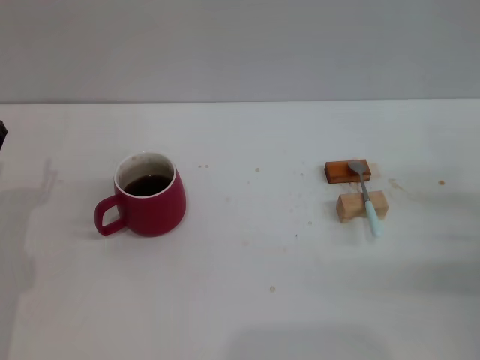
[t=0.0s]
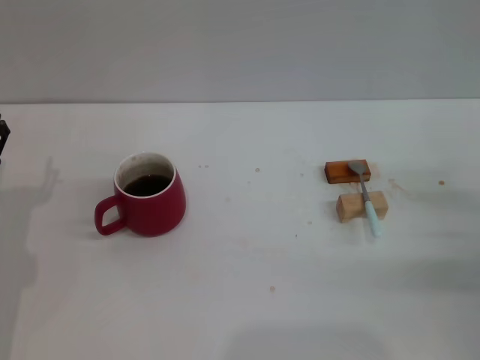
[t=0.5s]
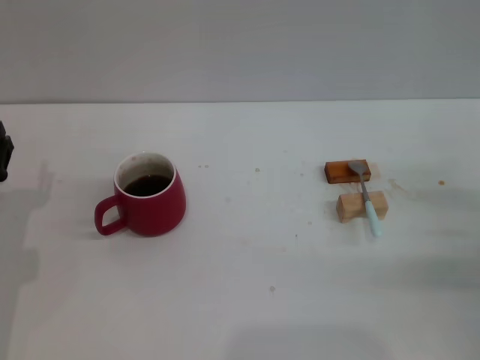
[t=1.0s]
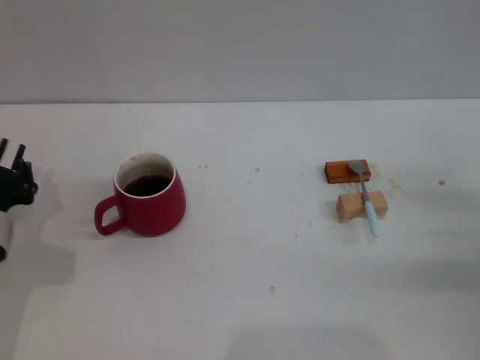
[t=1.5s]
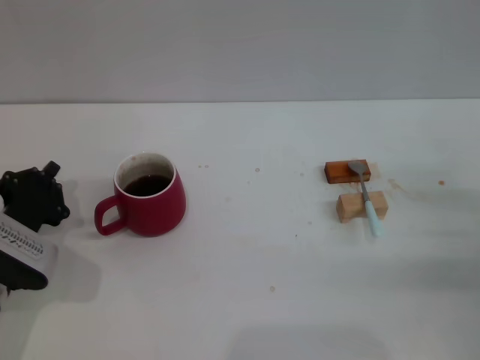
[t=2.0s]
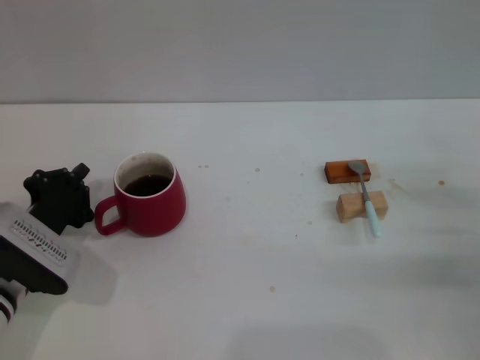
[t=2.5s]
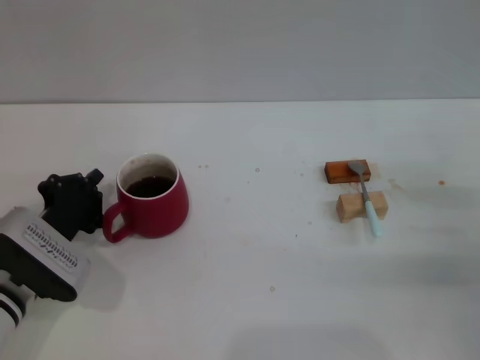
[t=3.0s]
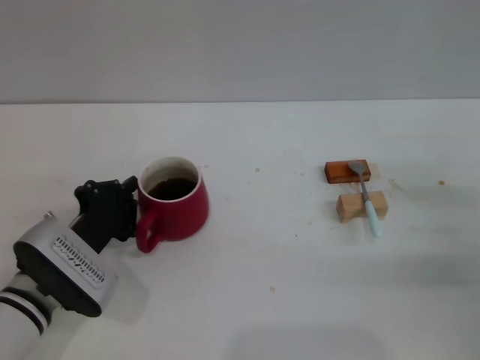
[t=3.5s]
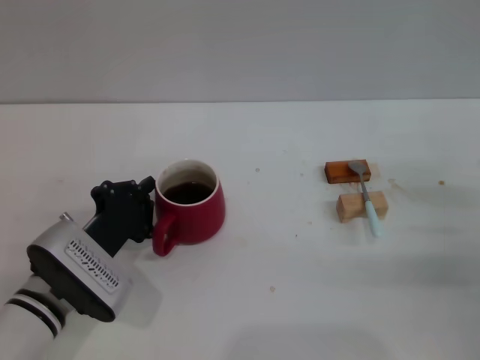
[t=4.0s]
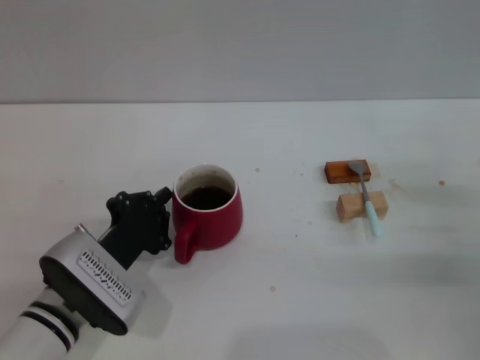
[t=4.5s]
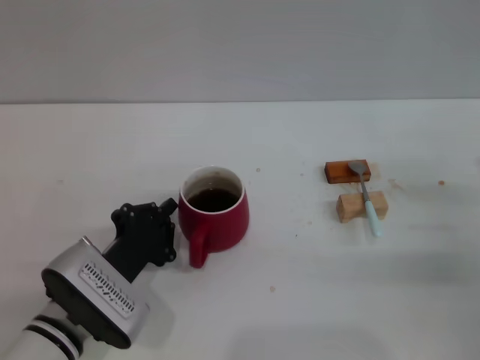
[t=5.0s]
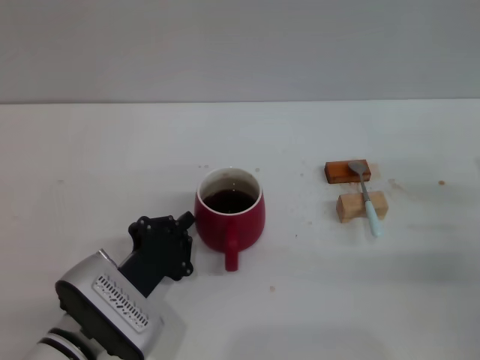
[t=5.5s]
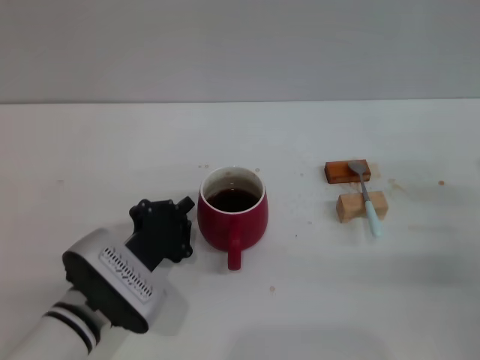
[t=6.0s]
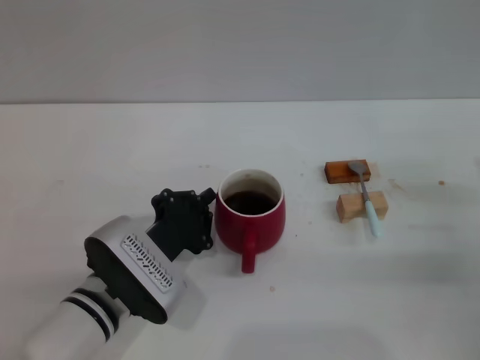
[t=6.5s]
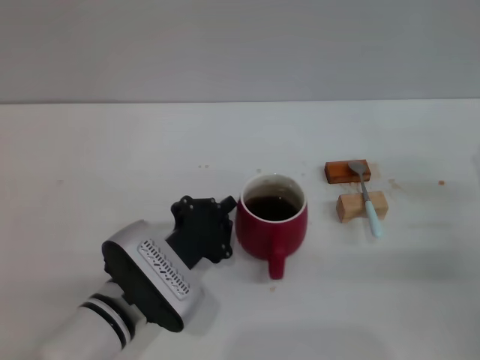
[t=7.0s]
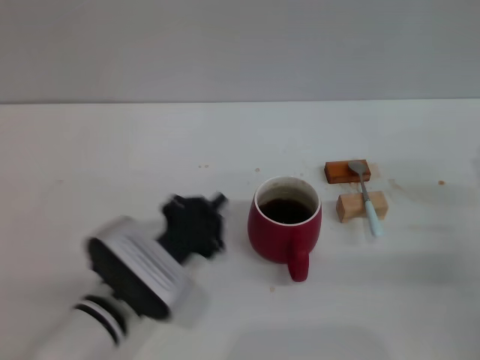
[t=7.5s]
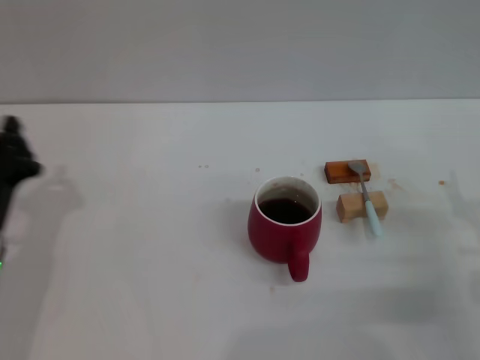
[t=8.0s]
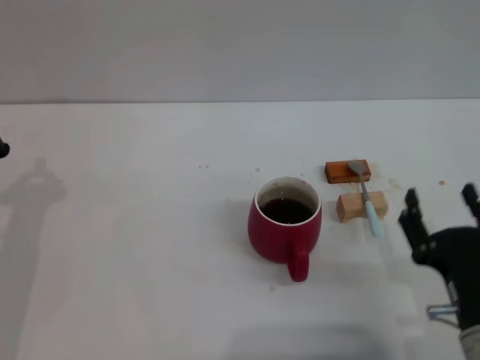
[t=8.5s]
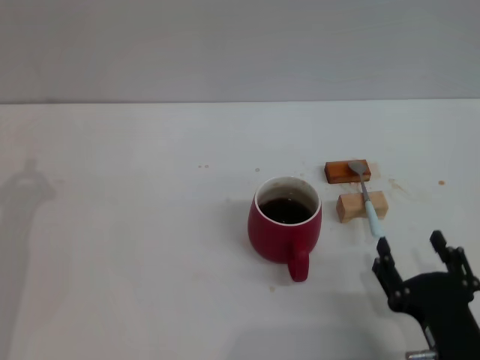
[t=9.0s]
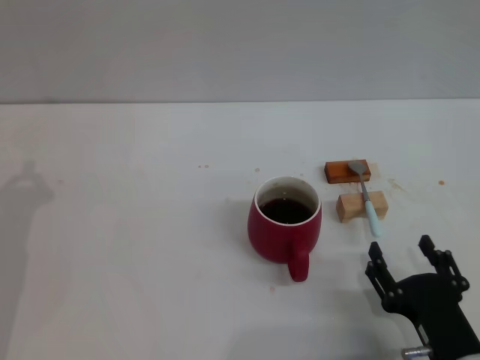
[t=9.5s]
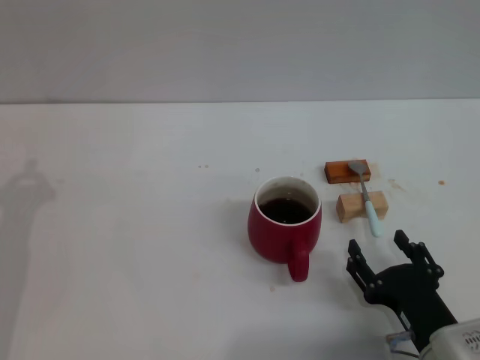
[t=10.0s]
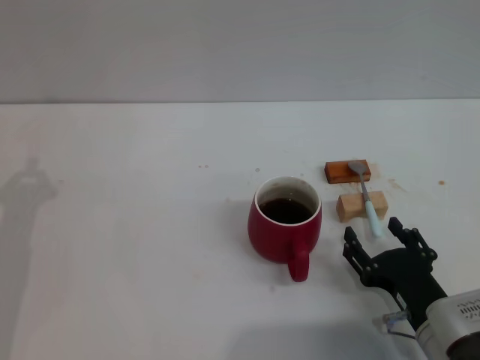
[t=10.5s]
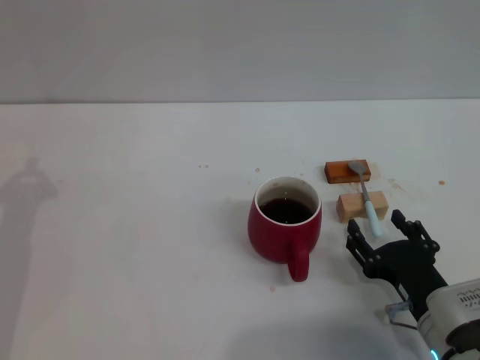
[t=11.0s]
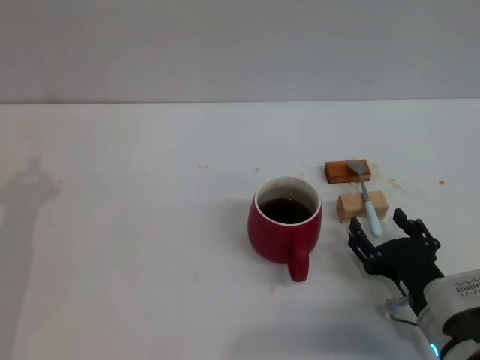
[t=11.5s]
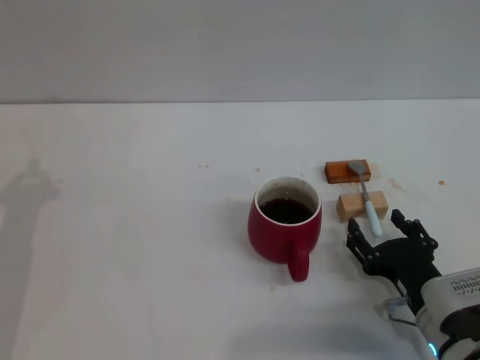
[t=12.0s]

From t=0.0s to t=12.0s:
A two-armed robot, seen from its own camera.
Task of the whole recording: Move the red cup to the center, lift the blue spoon, stir it three times in the cup, and put the spoon into the cup.
Step, from t=0.0s to t=7.0s: Move the cup in the center of the table with left gripper.
From t=0.0s to t=2.0s: The left gripper closes its fingers.
From t=2.0s to t=4.0s: The left gripper moves to the right, roughly 5 cm.
From t=4.0s to t=6.0s: There are only small adjustments of the grippers.
From t=6.0s to t=8.0s: The left gripper is displaced to the left by approximately 10 cm; the right gripper moves some 5 cm.
From t=8.0s to t=10.0s: The right gripper goes approximately 10 cm to the left and backward.
From t=10.0s to t=12.0s: There are only small adjustments of the grippers.

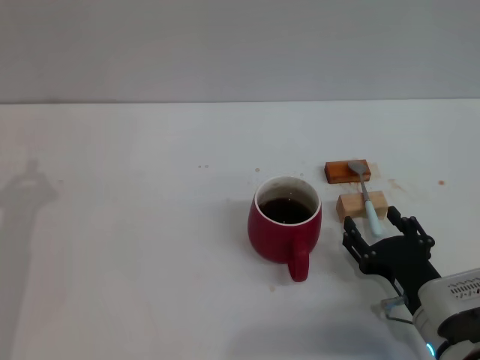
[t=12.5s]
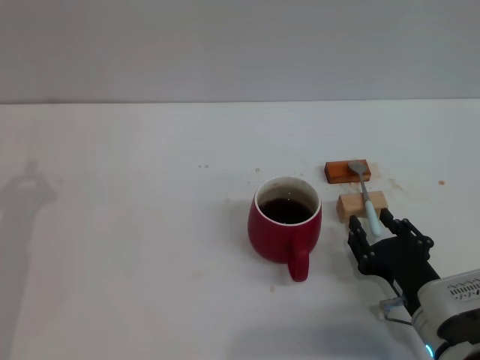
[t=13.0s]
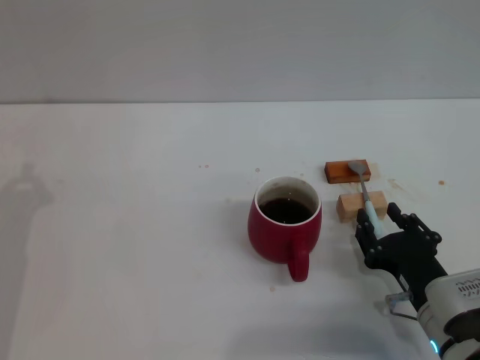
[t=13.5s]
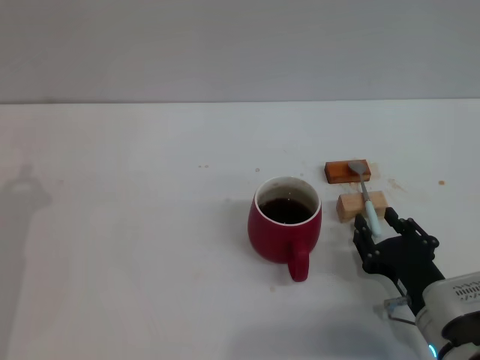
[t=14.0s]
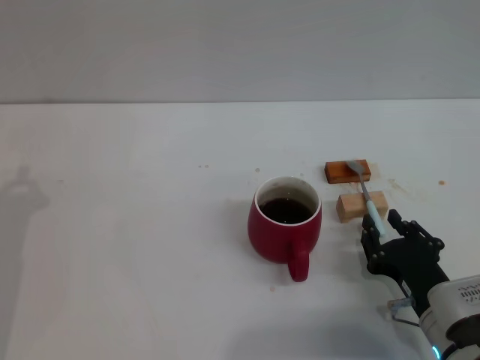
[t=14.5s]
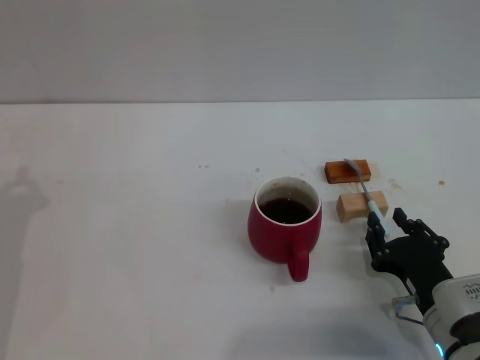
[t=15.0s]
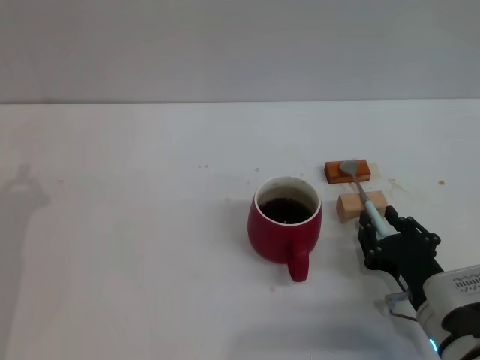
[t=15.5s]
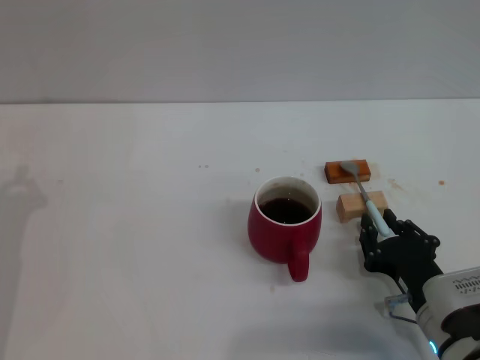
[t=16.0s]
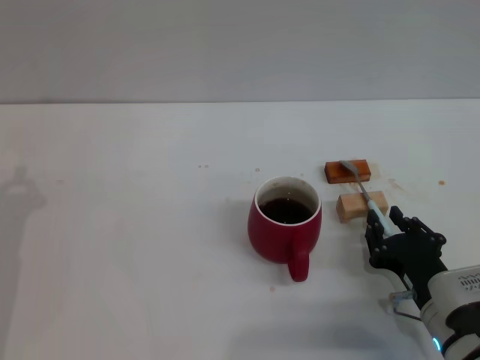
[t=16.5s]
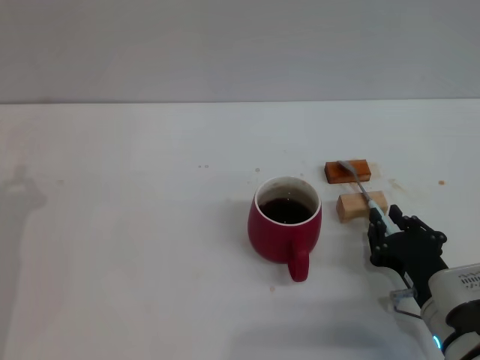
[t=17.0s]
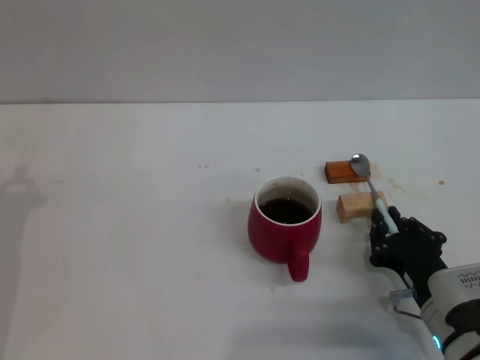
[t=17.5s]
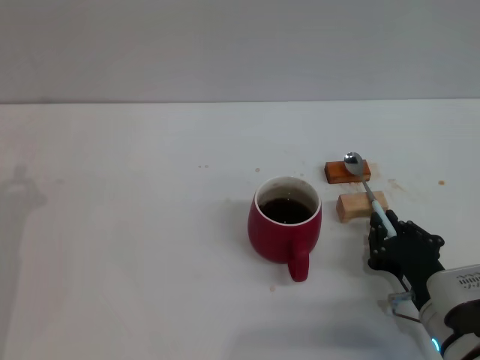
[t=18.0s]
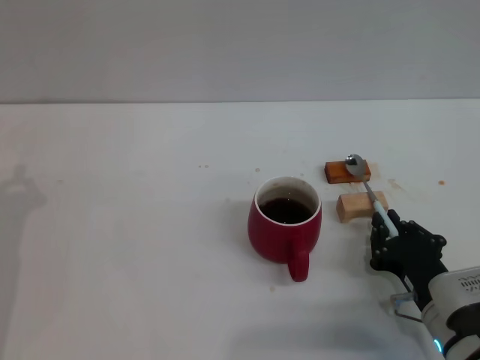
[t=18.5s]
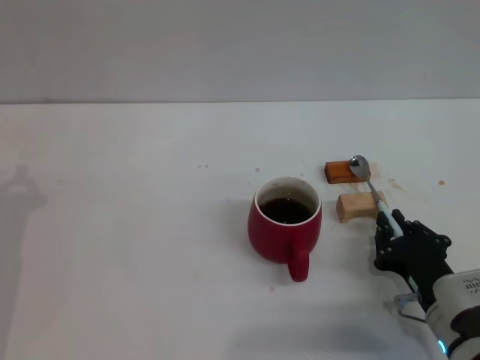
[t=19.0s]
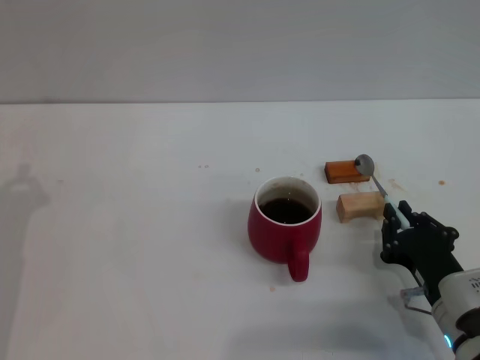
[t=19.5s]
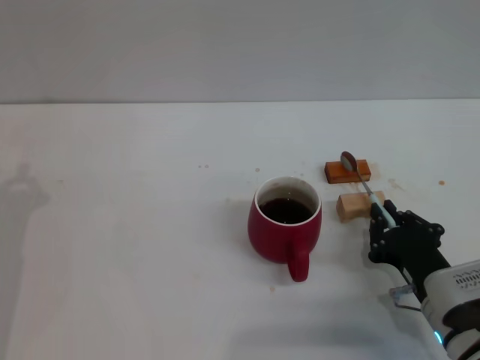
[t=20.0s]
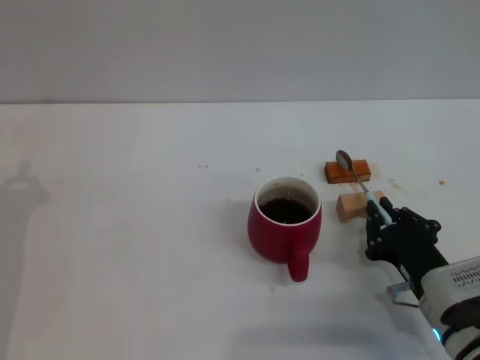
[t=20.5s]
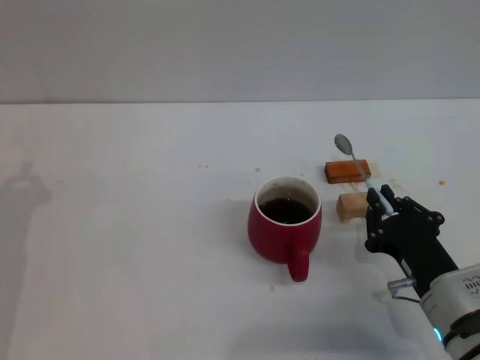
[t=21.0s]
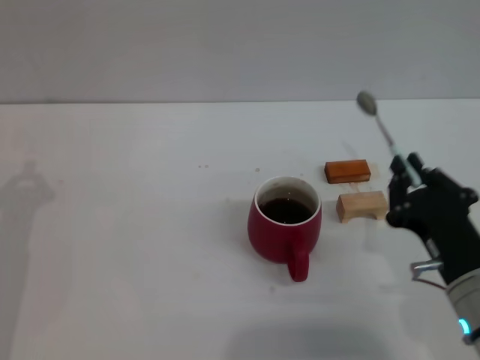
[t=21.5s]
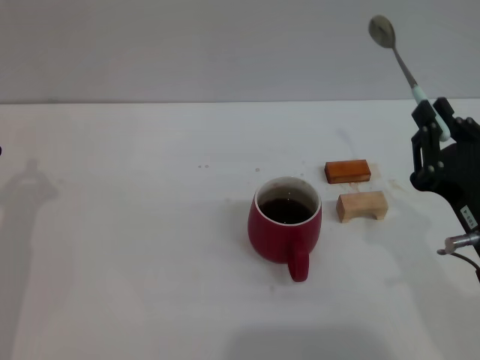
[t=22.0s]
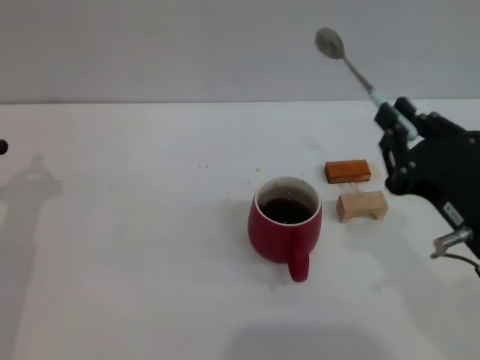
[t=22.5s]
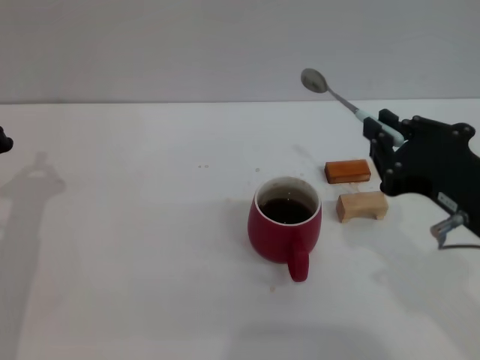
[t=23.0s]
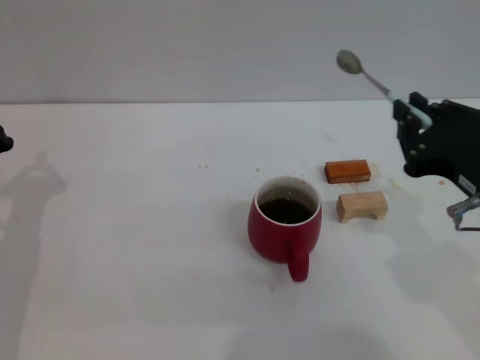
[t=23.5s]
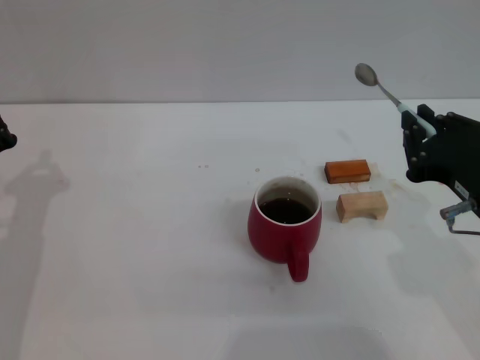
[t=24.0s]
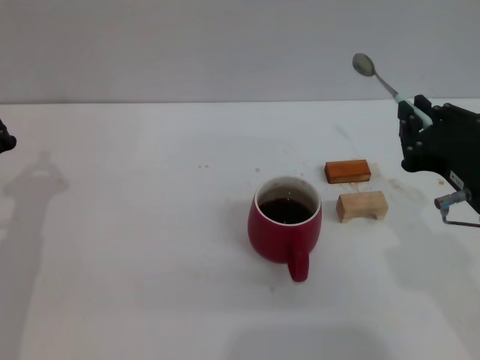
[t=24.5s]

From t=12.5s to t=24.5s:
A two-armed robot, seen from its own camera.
Task of the whole recording: Move the red cup to the center, lift the blue spoon, stir it three times in the cup, and put the spoon into the cup.
Step, from t=12.5s to t=19.5s: Grasp the spoon with right gripper.
From t=12.5s to t=14.5s: The right gripper closes up.
From t=14.5s to t=18.5s: The two grippers keep their place.
From t=18.5s to t=20.5s: There are only small adjustments of the grippers.
From t=20.5s to t=22.5s: The right gripper shifts roughly 15 cm upward.

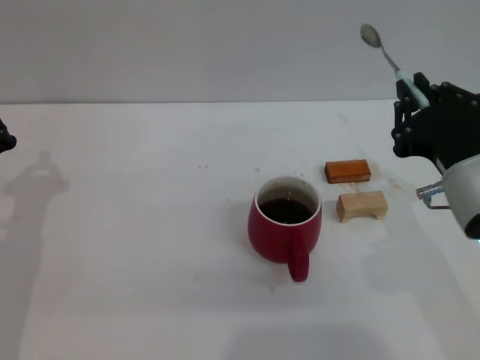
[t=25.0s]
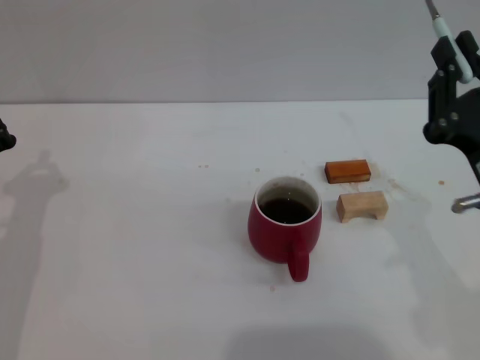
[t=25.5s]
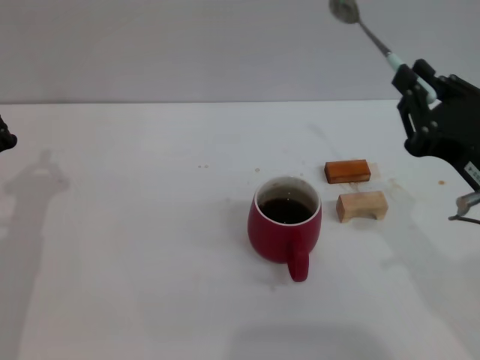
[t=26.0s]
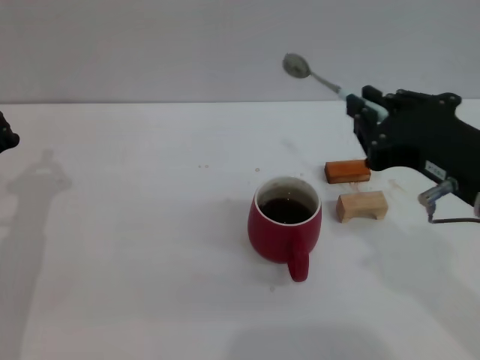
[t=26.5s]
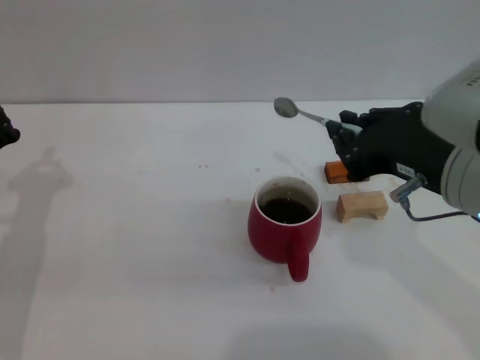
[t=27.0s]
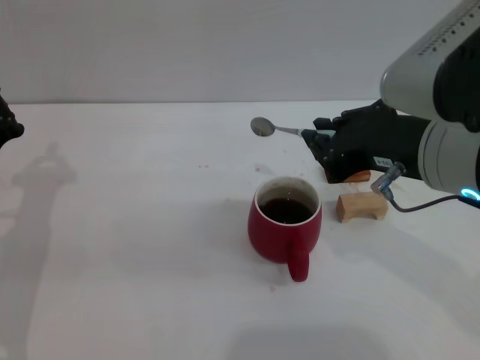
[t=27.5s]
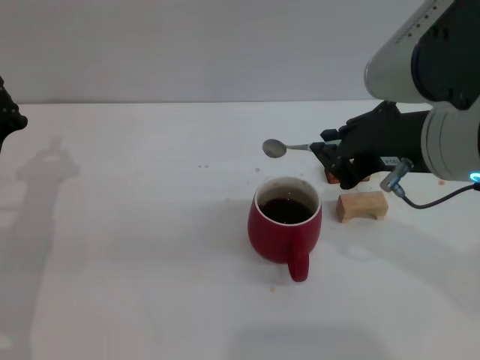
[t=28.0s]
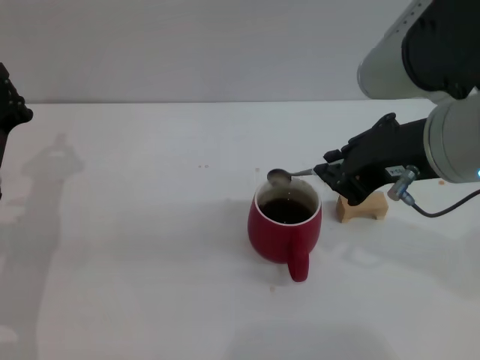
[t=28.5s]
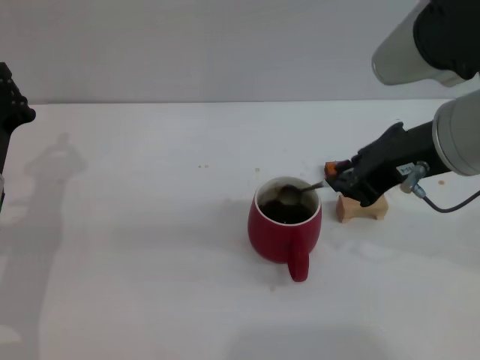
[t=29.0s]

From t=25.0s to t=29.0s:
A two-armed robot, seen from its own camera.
Task of the whole recording: Move the red cup to the center, lift the blue spoon, stir it three times in the cup, and put the spoon into the cup.
From t=25.0s to t=27.0s: The right gripper heads upward, covering some 5 cm.
From t=27.0s to t=29.0s: The right gripper is displaced forward by roughly 5 cm.
